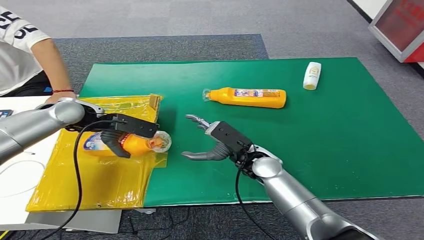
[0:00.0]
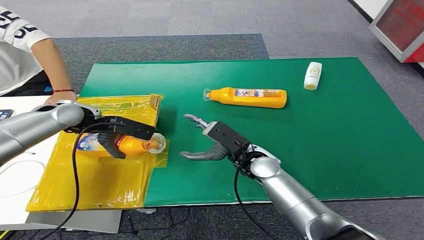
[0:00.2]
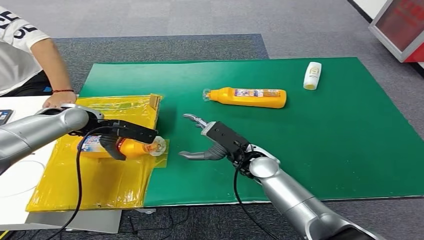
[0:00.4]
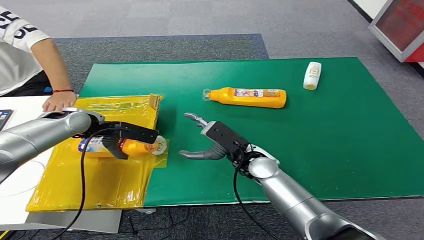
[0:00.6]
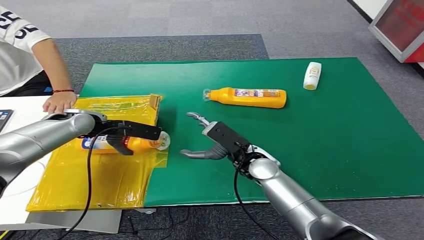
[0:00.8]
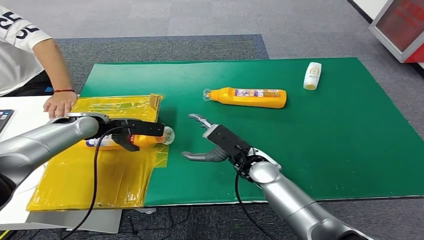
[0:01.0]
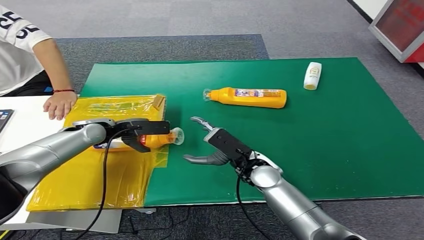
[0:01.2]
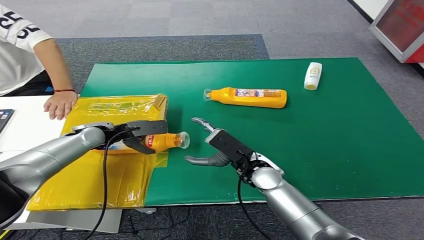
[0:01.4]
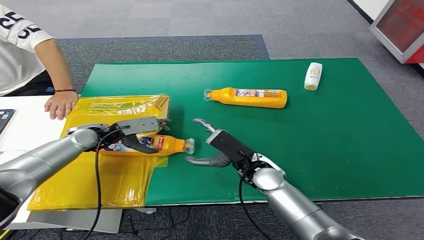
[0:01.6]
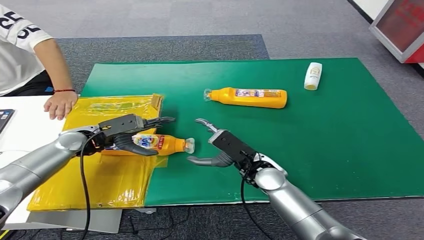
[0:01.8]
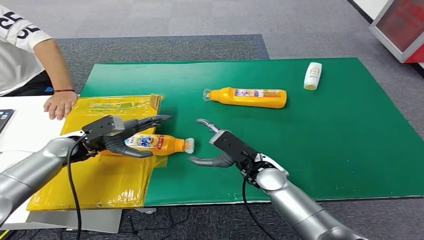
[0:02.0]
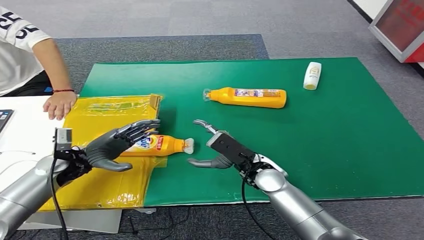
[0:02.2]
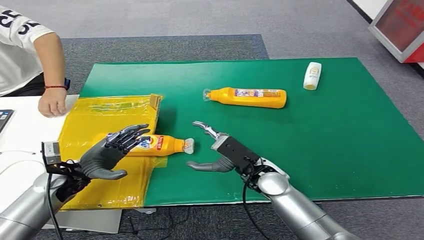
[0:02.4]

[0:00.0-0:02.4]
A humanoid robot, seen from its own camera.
Step, 0:00.0 to 0:02.4: Turn the bottle to the front side.
0:00.0 to 0:01.2: The left hand shifts about 10 cm downward.
0:01.2 to 0:02.4: The left hand is displaced backward and downward by roughly 15 cm.
